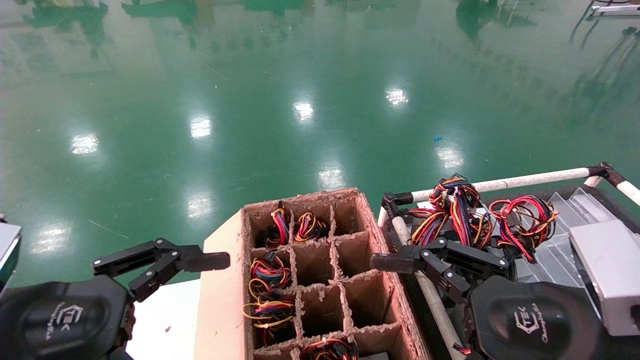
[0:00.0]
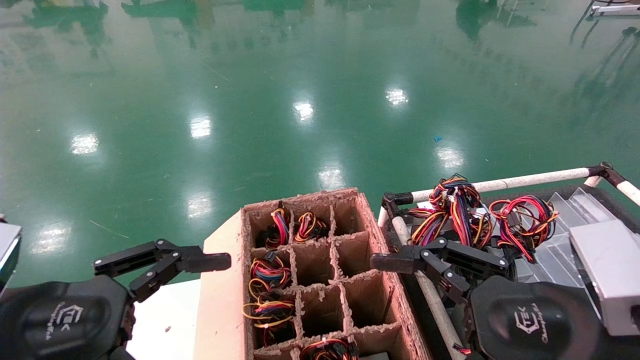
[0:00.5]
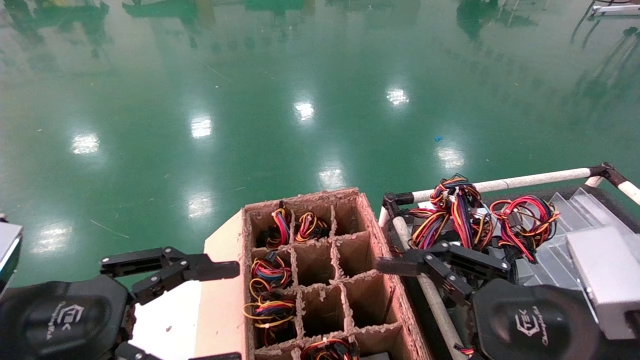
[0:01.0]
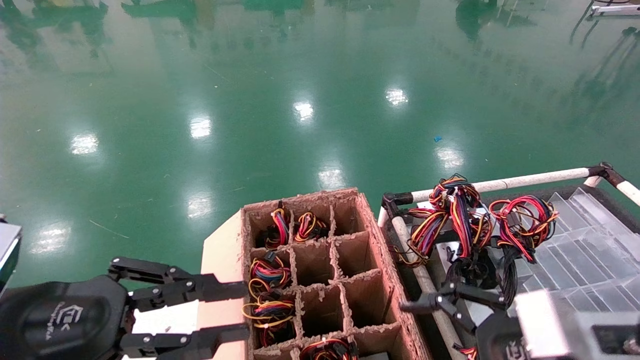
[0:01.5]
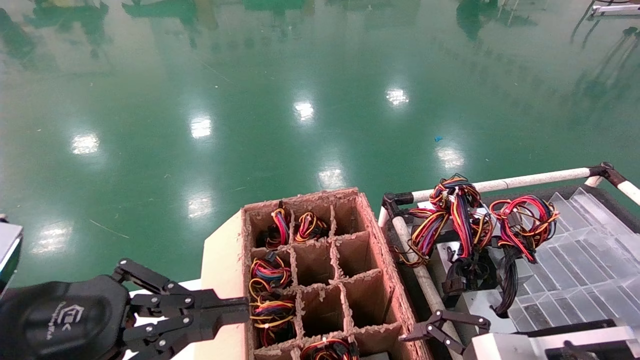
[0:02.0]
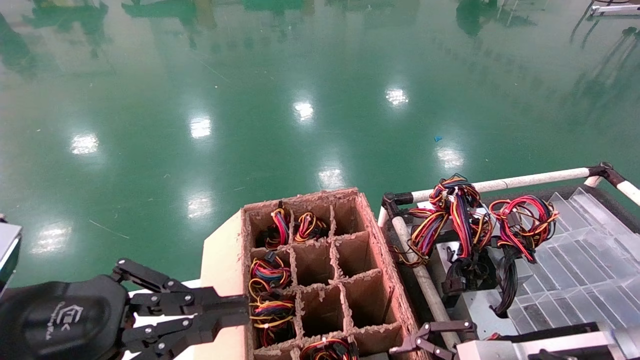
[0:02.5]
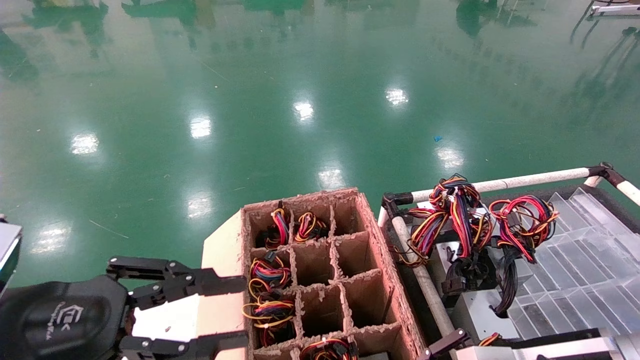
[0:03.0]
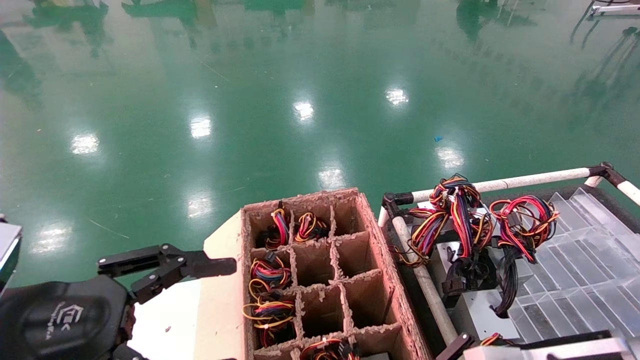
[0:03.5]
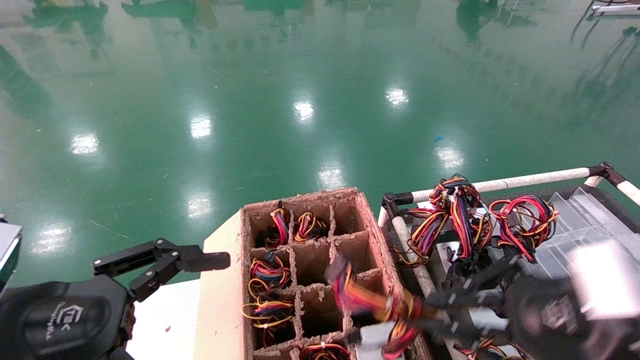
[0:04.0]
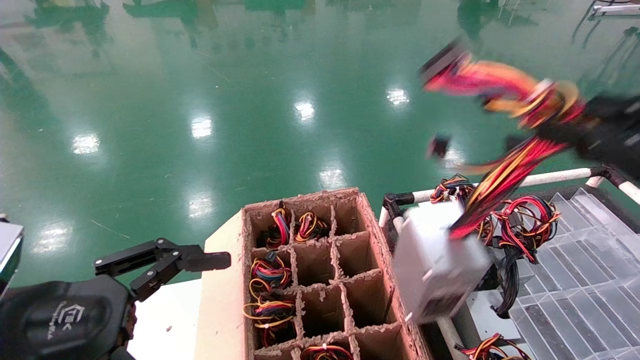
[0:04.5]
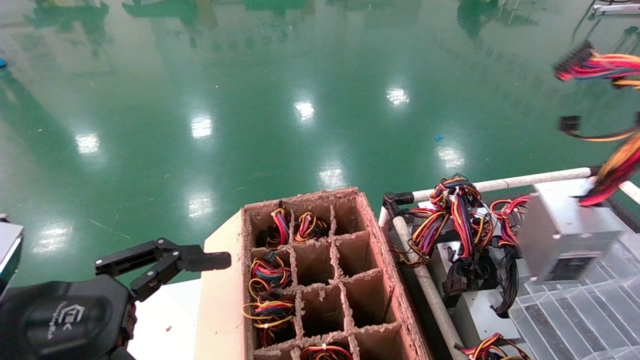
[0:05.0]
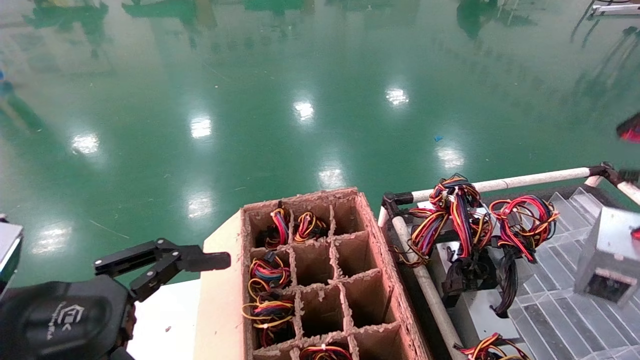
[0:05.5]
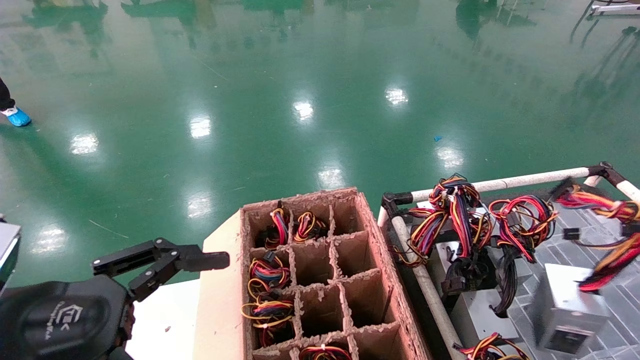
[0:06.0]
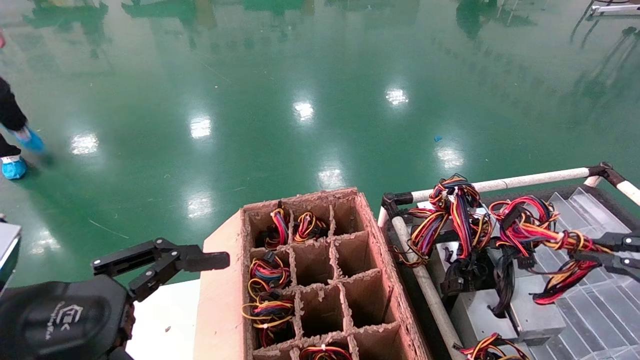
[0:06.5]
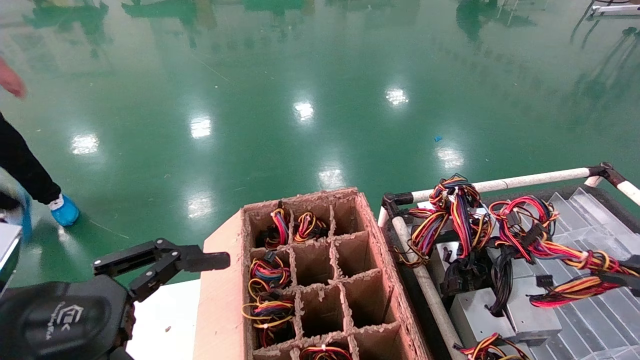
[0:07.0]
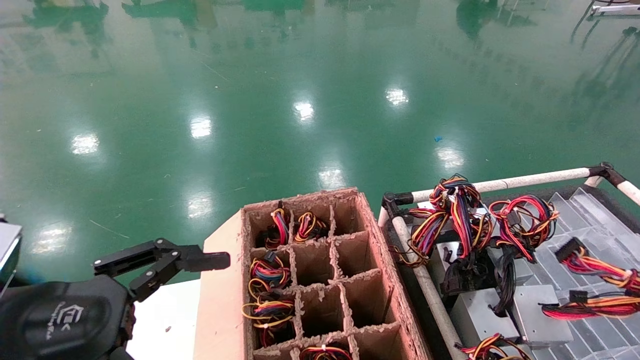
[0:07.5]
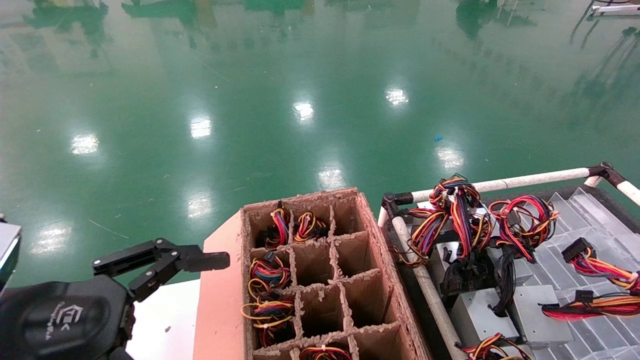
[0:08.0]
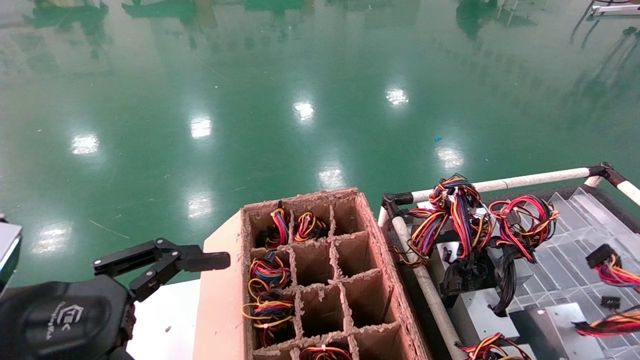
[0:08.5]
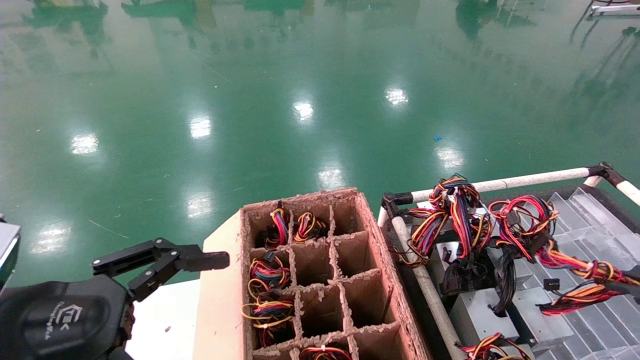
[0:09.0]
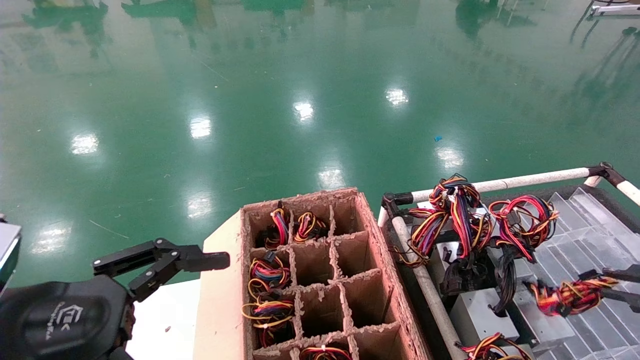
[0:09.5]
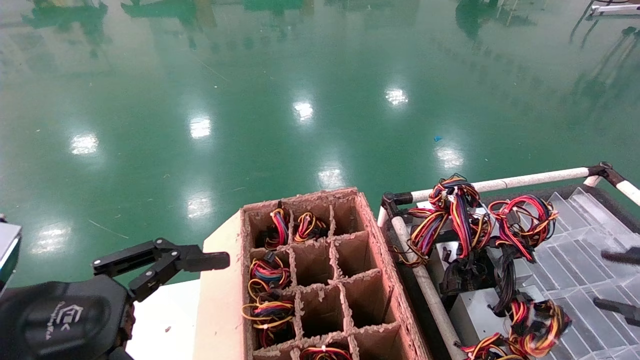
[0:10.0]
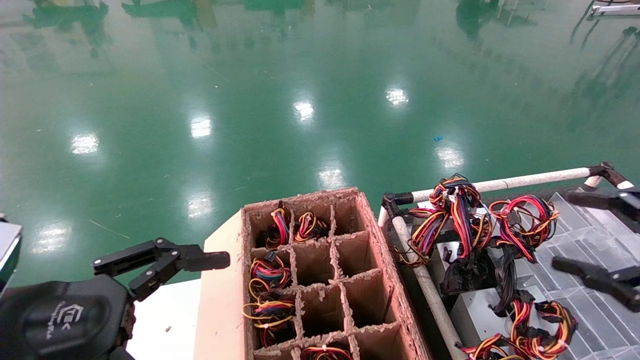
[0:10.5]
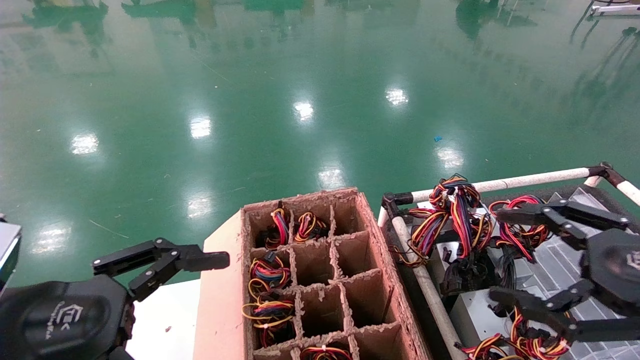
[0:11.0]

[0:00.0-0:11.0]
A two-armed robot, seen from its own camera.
Step, 0:01.0 to 0:03.5: Grab and lift the power supply from the large box.
Step, 0:04.0 to 0:09.5: Place the power supply on the operating table.
0:00.0 to 0:02.0: The left gripper closes its fingers, while the right gripper is displaced downward and forward by about 10 cm.
0:02.0 to 0:03.5: The left gripper opens. The right gripper closes.
0:03.5 to 0:05.5: The right gripper moves to the right, upward and backward, about 30 cm.
0:05.5 to 0:07.5: The right gripper goes some 10 cm downward.
0:07.5 to 0:09.0: The grippers stay close to where they were, moving slightly.
0:09.0 to 0:11.0: The right gripper heads to the left, covering some 15 cm, and opens.
